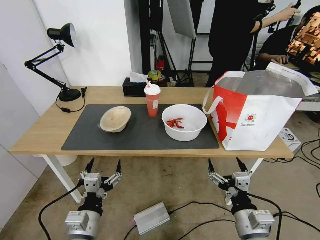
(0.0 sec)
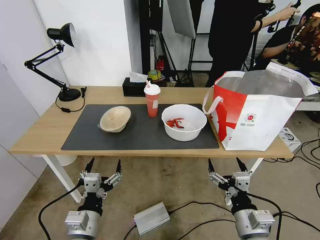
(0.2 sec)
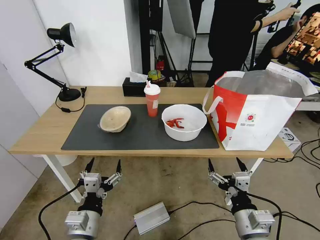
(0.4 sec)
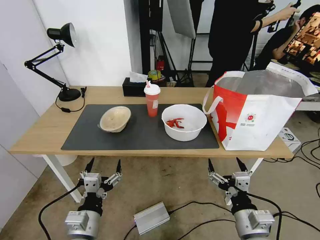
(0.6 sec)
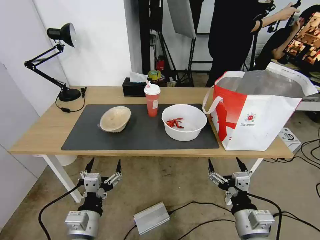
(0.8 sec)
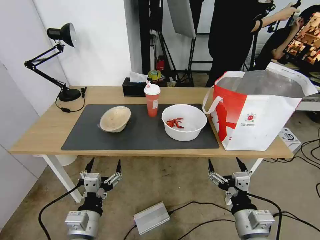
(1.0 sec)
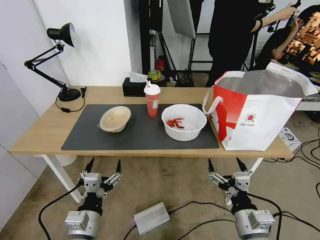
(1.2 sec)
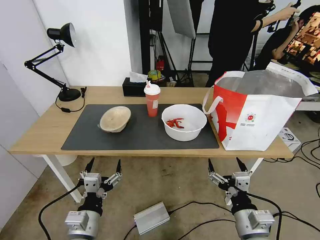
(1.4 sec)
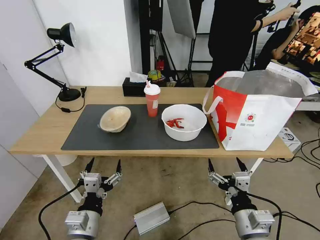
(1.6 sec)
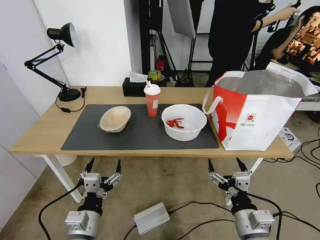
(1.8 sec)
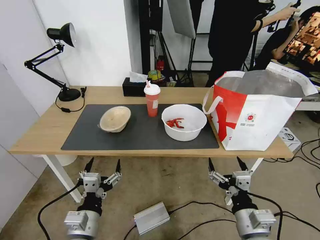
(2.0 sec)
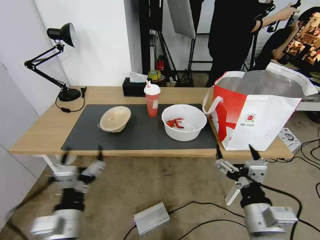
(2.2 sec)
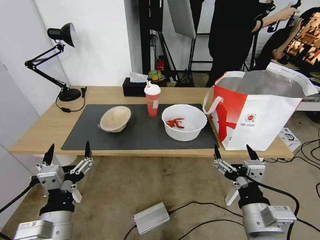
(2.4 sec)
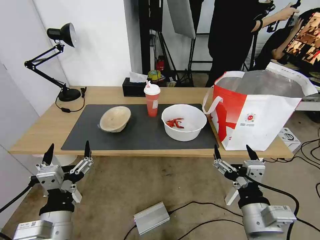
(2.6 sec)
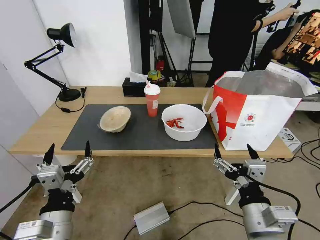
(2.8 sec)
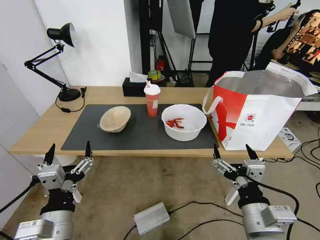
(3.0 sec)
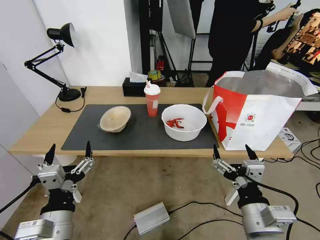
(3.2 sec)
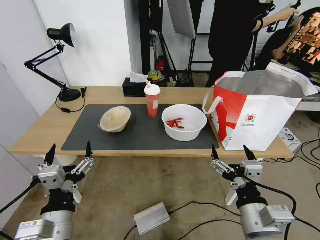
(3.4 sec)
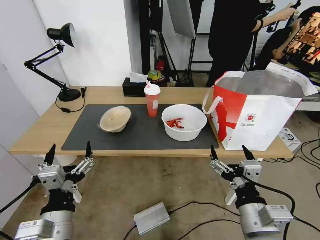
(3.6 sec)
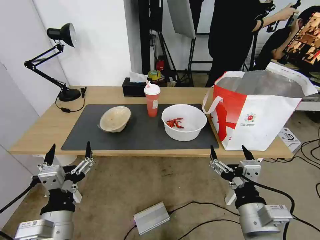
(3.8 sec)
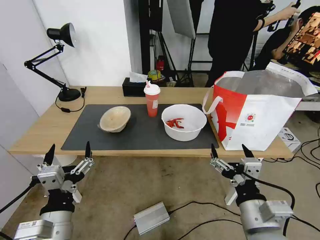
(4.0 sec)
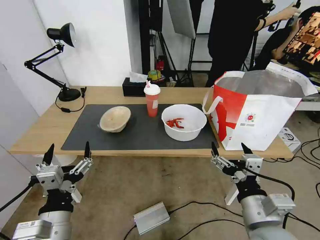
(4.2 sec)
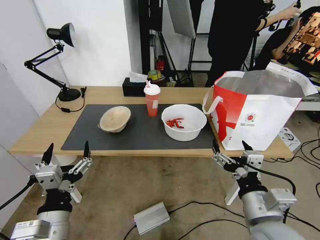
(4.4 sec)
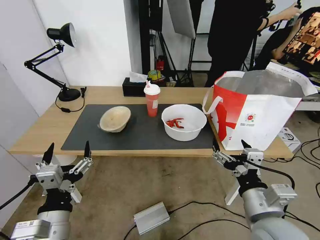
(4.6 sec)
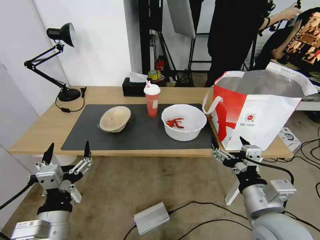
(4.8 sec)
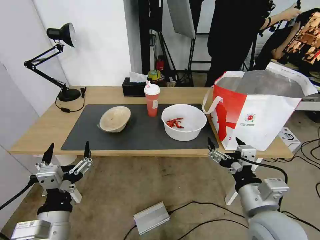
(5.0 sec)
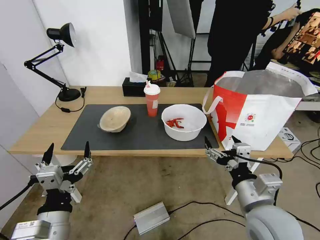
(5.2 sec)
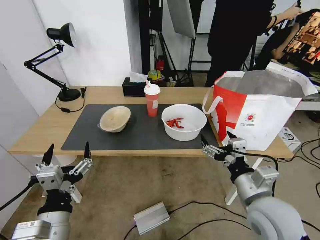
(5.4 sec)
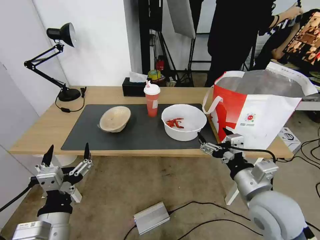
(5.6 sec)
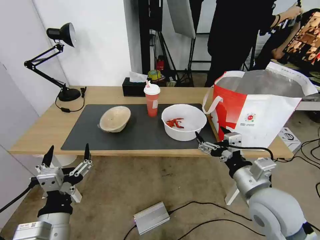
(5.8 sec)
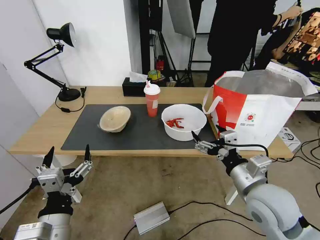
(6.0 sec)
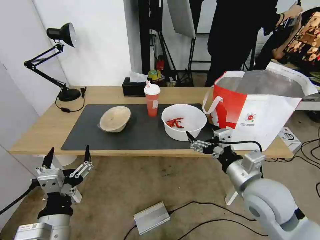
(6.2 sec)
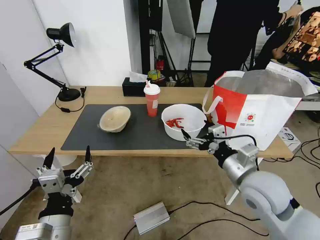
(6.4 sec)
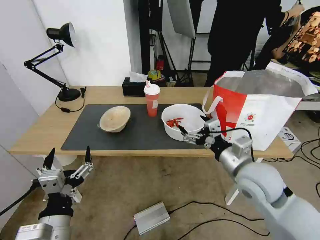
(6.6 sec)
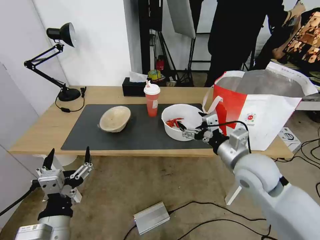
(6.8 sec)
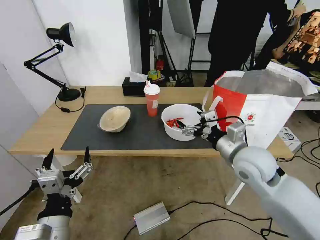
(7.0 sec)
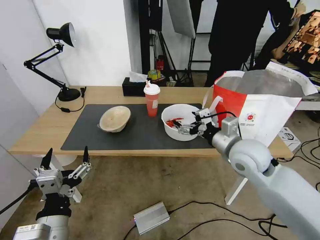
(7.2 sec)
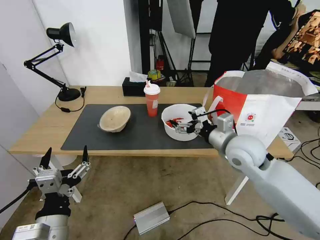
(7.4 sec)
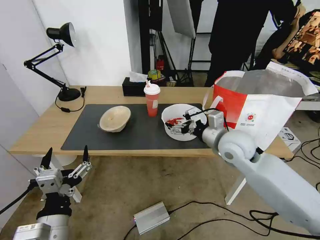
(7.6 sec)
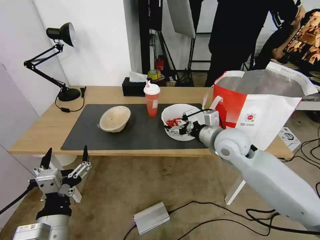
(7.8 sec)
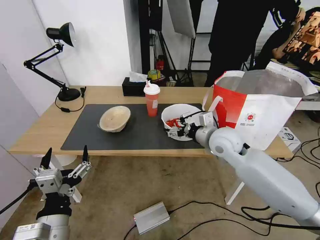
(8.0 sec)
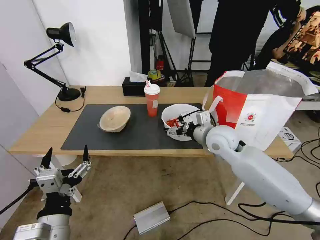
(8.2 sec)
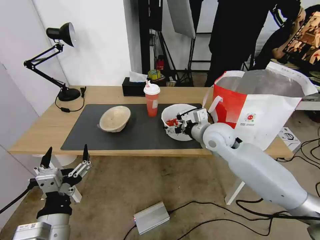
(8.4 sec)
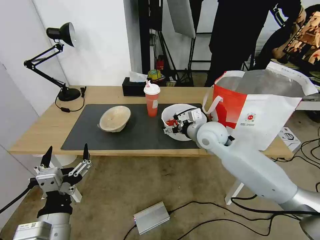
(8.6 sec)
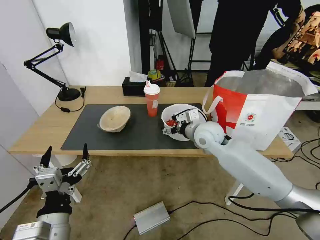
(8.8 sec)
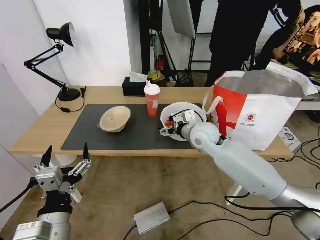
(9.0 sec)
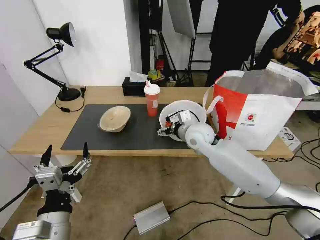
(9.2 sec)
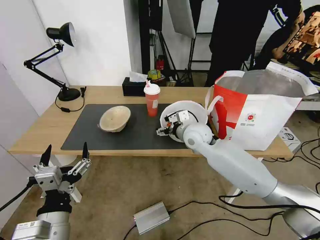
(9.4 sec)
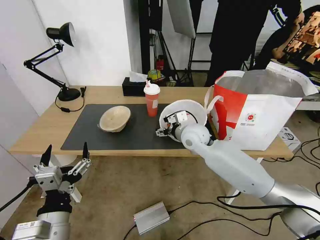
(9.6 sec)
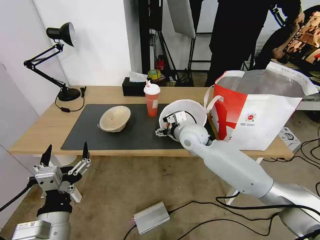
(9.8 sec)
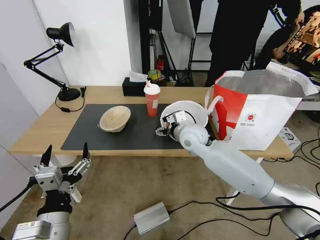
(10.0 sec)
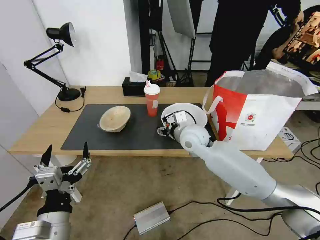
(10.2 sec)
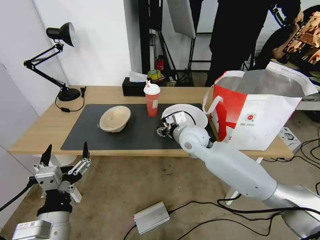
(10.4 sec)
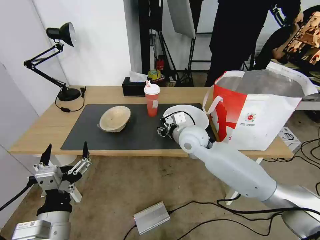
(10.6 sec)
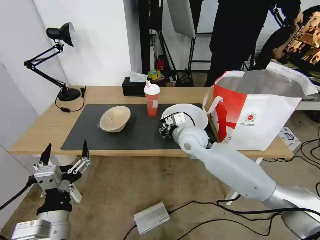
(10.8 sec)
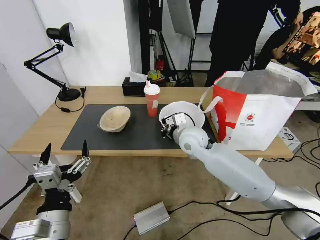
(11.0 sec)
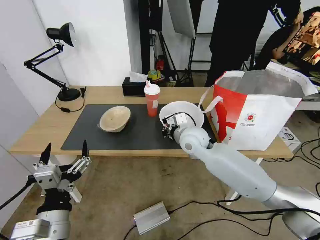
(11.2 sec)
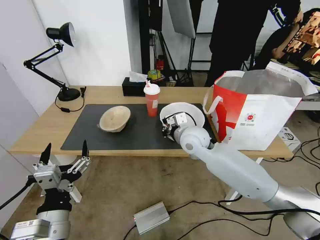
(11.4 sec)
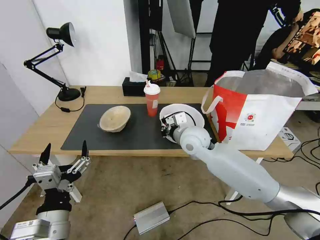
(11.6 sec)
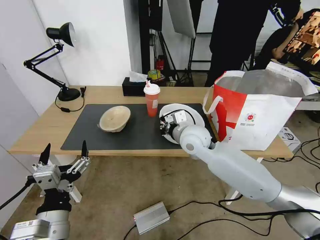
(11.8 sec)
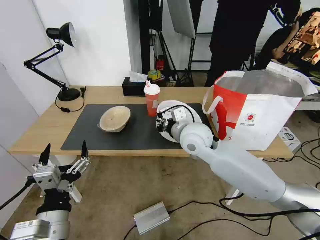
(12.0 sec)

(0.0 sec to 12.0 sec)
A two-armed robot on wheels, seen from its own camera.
Task of the whole recording: Pick up the trash from the table and place it into the takeout bag.
1.6 sec - 3.0 sec: Both grippers move upward, approximately 5 cm.
3.0 sec - 4.4 sec: There are only small adjustments of the grippers.
4.4 sec - 6.0 sec: The right gripper shifts roughly 5 cm forward.
6.0 sec - 7.6 sec: The right gripper travels forward by approximately 15 cm.
7.6 sec - 9.0 sec: The right gripper heads forward and to the left, covering roughly 10 cm.
9.0 sec - 10.4 sec: The right gripper closes its fingers.
10.4 sec - 12.0 sec: The right gripper ends up about 5 cm from where it was, and closes up.

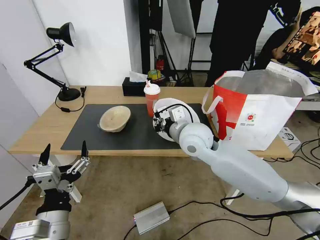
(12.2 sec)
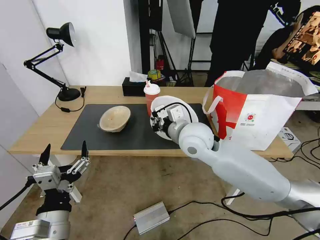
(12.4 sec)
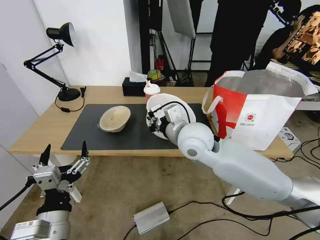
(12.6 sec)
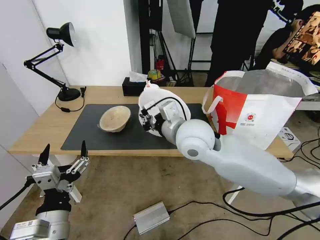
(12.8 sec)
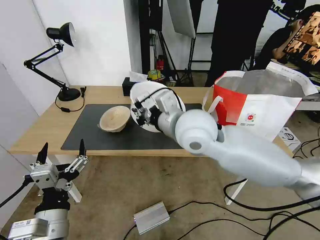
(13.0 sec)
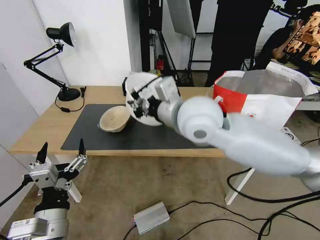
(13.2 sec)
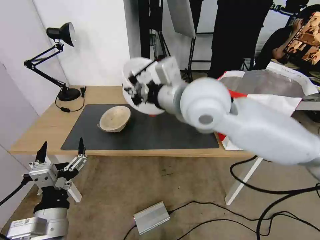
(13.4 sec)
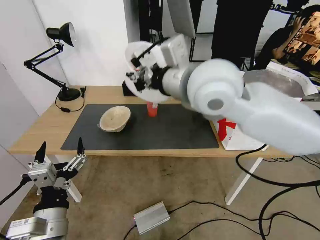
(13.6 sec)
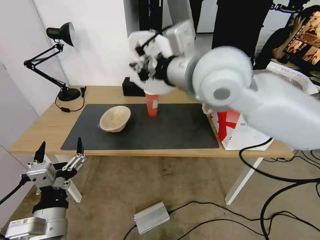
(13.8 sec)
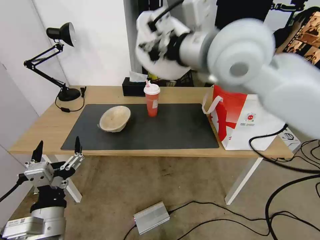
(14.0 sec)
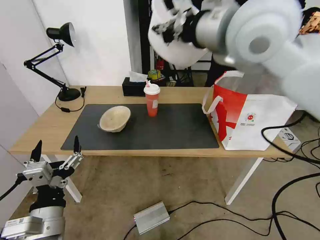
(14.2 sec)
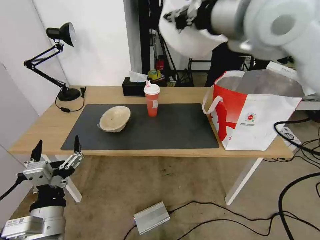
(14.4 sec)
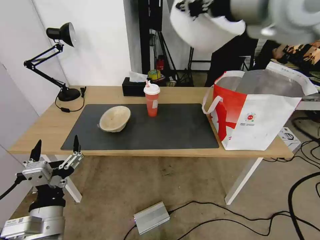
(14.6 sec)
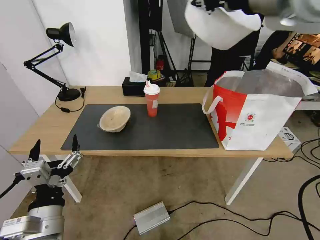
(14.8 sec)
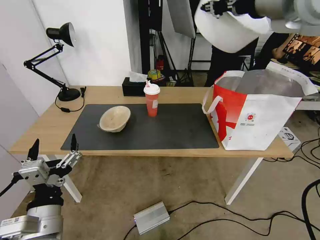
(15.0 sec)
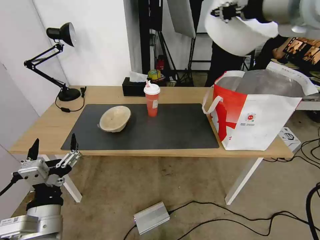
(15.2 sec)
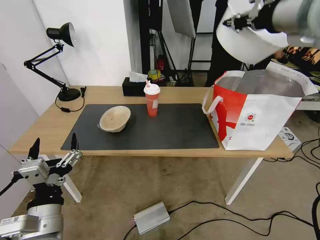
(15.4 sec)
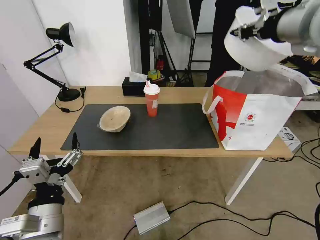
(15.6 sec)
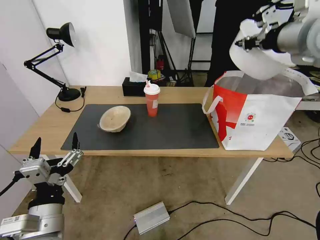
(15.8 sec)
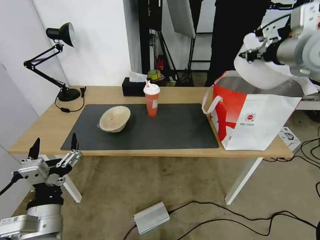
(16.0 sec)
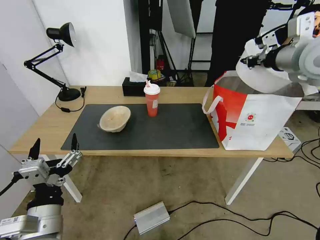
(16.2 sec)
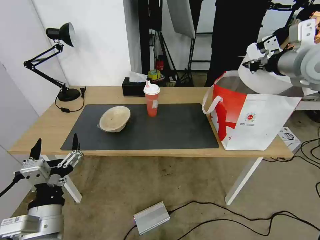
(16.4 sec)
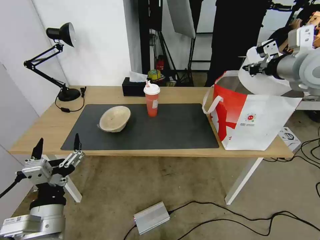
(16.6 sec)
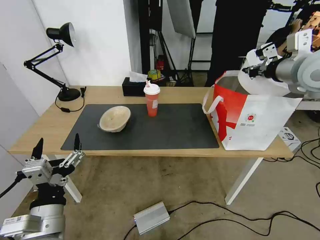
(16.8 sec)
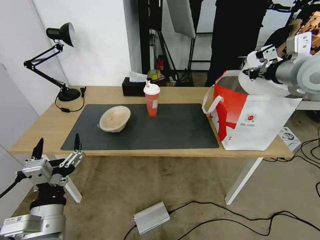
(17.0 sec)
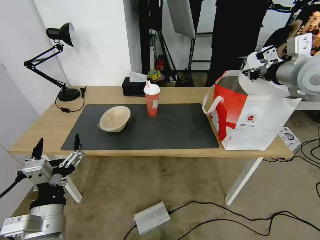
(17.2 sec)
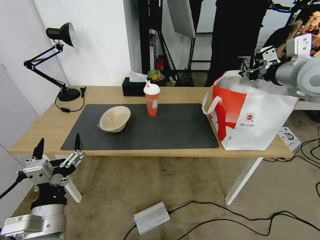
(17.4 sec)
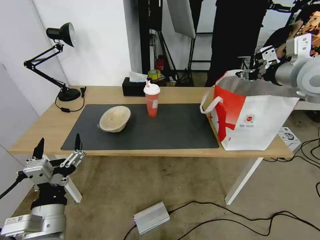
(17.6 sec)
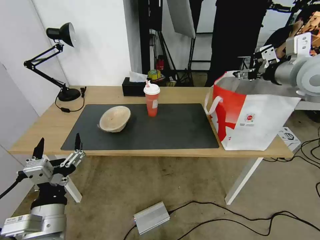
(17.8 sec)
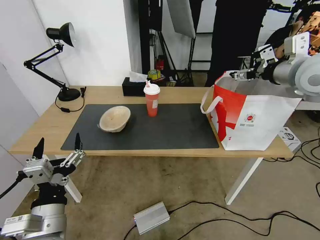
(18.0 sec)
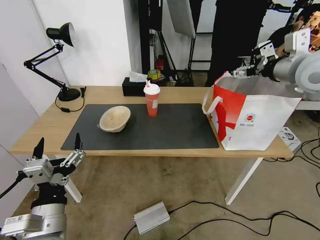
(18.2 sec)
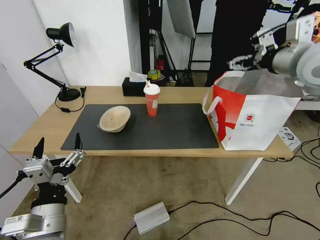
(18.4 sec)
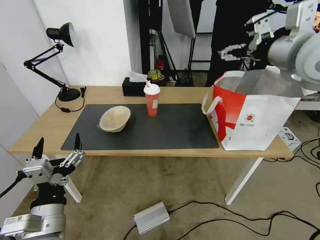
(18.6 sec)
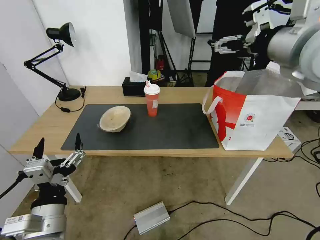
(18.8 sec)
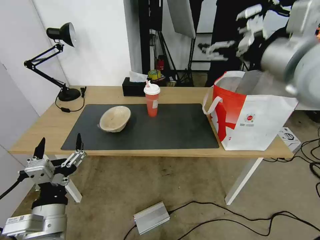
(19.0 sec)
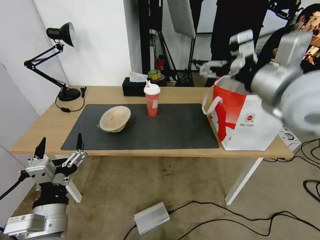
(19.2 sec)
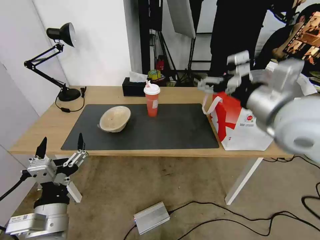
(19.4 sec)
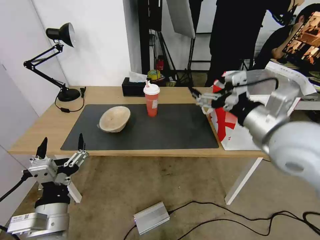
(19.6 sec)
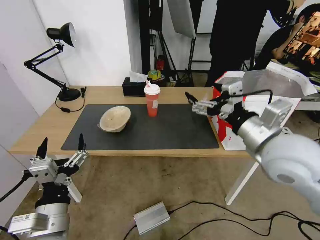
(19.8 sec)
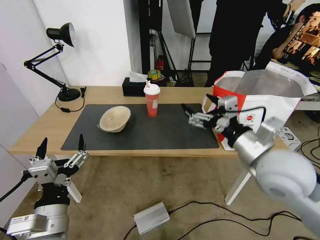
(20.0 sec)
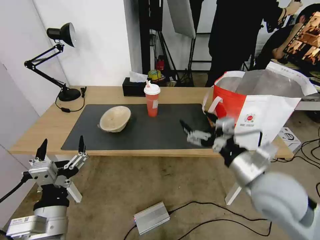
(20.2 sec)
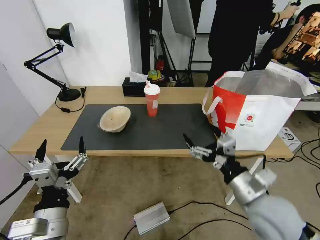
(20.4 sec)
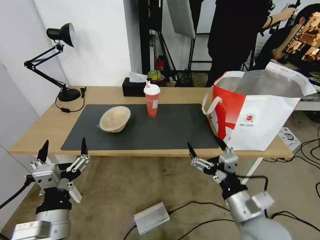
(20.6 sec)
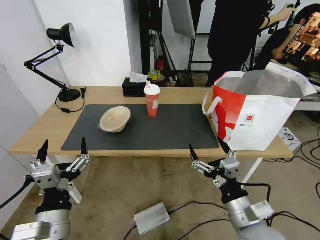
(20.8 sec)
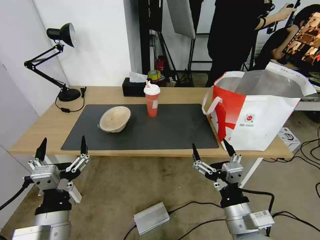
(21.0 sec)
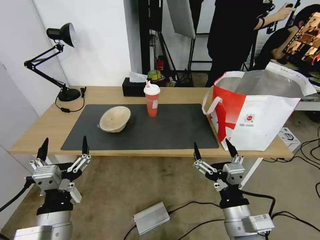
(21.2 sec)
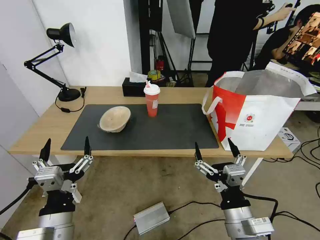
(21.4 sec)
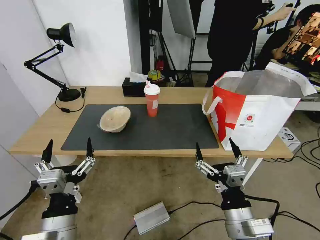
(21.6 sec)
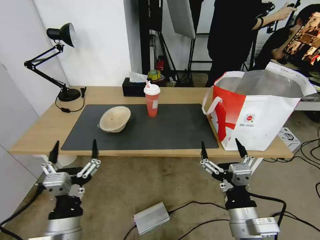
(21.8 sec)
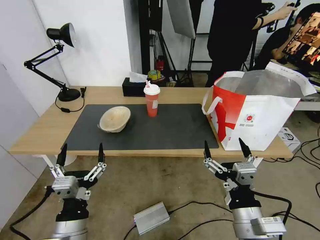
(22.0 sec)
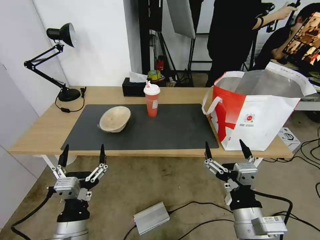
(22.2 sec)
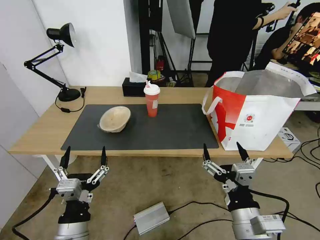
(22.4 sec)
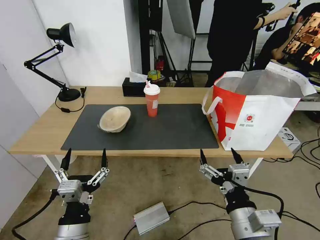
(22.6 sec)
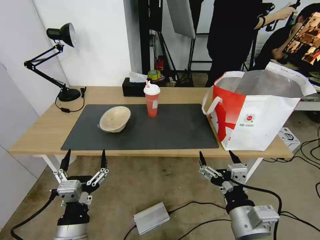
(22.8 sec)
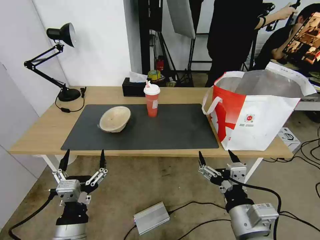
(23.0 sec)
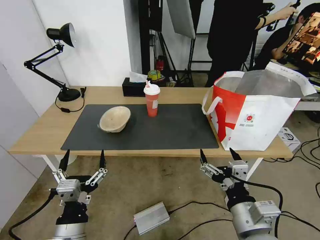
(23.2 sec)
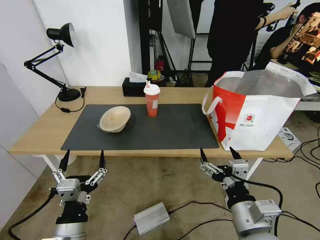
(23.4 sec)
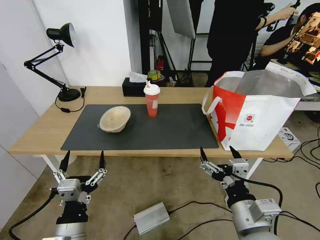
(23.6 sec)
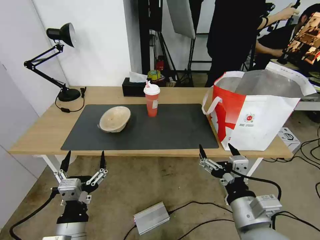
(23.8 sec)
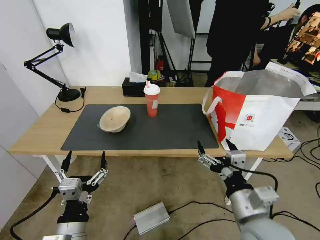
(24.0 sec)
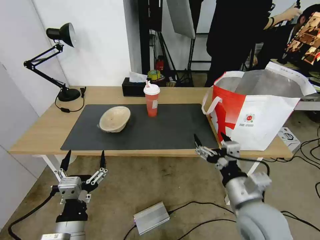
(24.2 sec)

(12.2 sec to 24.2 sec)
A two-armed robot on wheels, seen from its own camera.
Task of the whole recording: Pick up the trash from the table and place it into the takeout bag.
12.2 sec - 13.8 sec: The right gripper moves upward, approximately 20 cm.
13.8 sec - 15.2 sec: The right gripper heads to the right and upward, covering about 20 cm.
15.2 sec - 16.6 sec: The right gripper heads downward and to the right, covering some 15 cm.
16.6 sec - 18.2 sec: The right gripper opens up.
18.2 sec - 19.8 sec: The right gripper shifts about 20 cm backward, downward and to the left.
19.8 sec - 21.2 sec: The right gripper goes some 20 cm downward and backward.
21.2 sec - 22.6 sec: The grippers move only a little.
22.6 sec - 24.2 sec: The right gripper goes roughly 5 cm forward.
